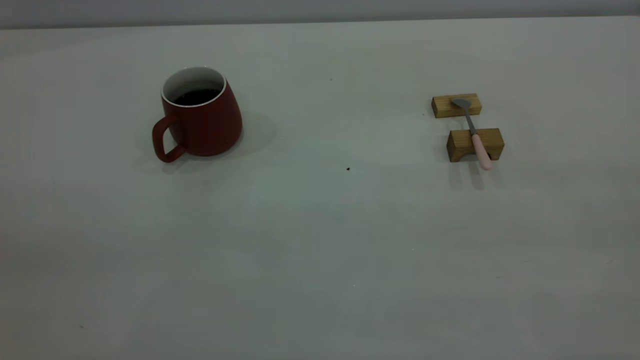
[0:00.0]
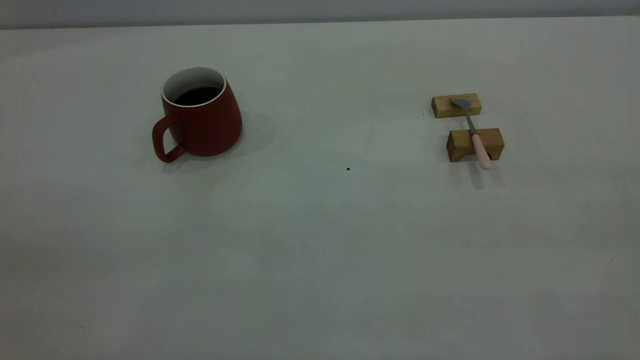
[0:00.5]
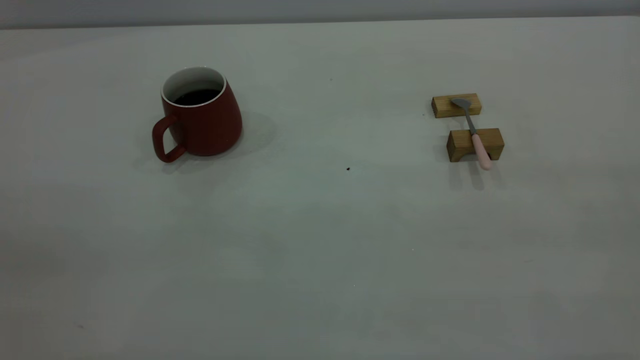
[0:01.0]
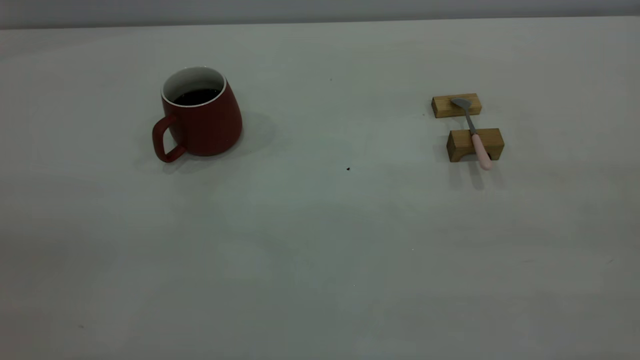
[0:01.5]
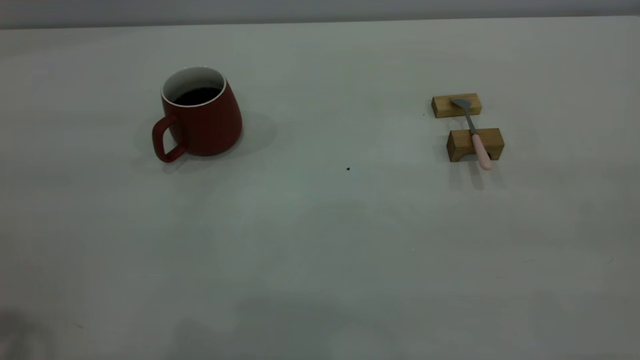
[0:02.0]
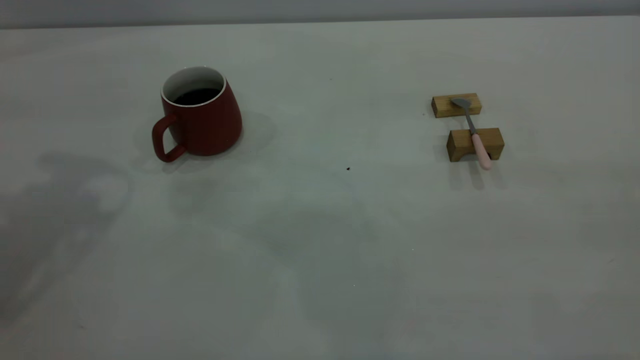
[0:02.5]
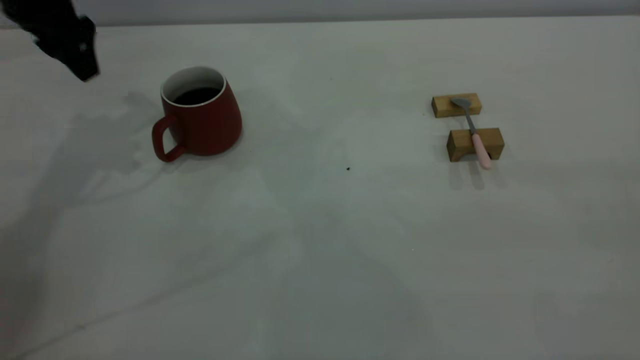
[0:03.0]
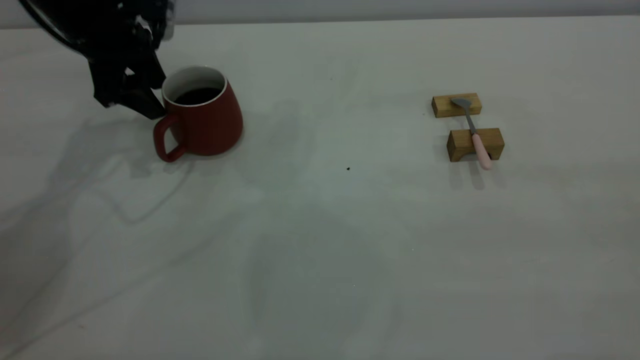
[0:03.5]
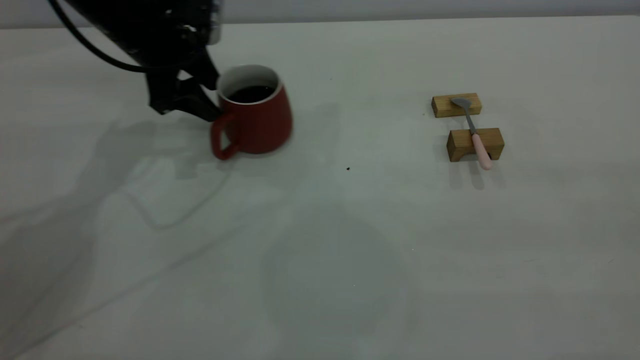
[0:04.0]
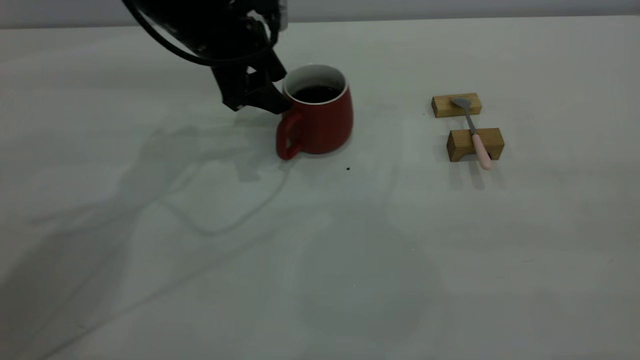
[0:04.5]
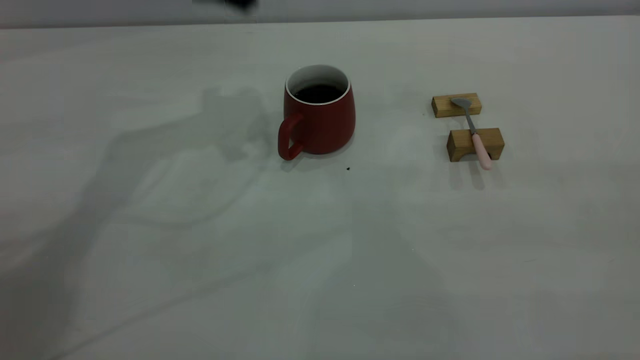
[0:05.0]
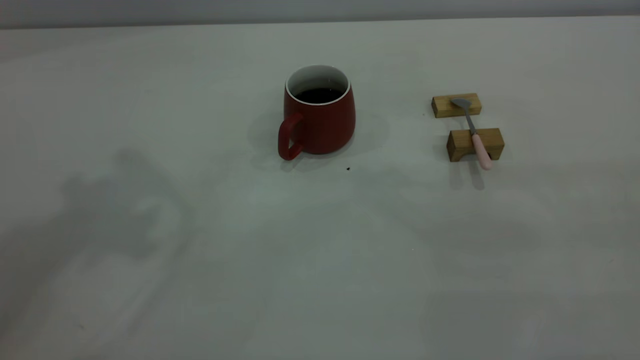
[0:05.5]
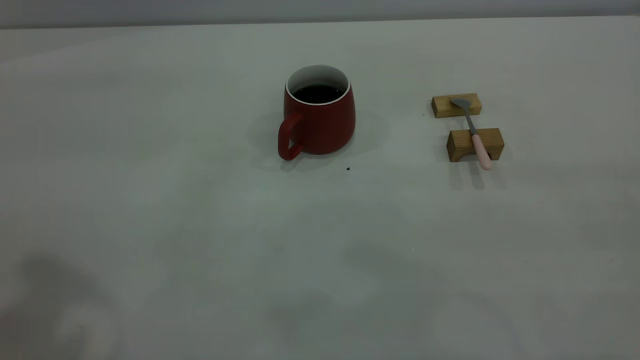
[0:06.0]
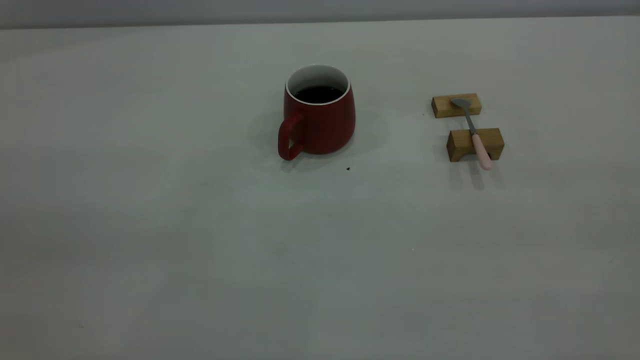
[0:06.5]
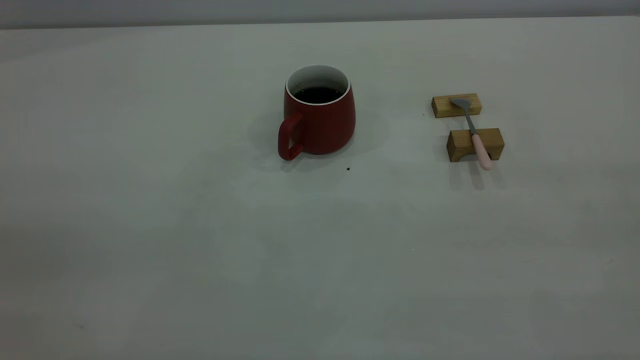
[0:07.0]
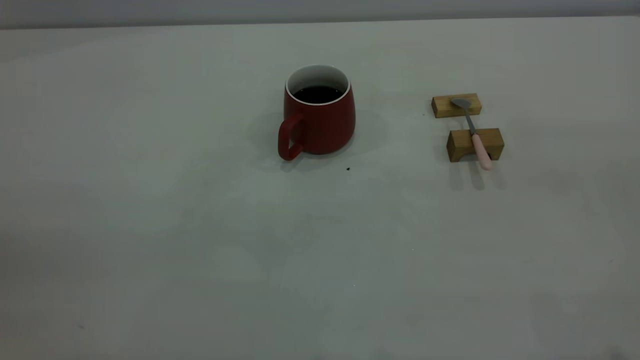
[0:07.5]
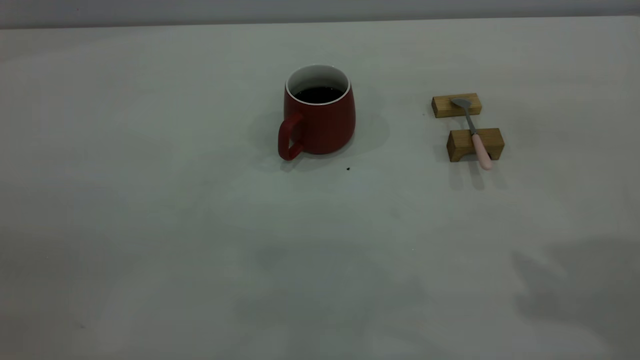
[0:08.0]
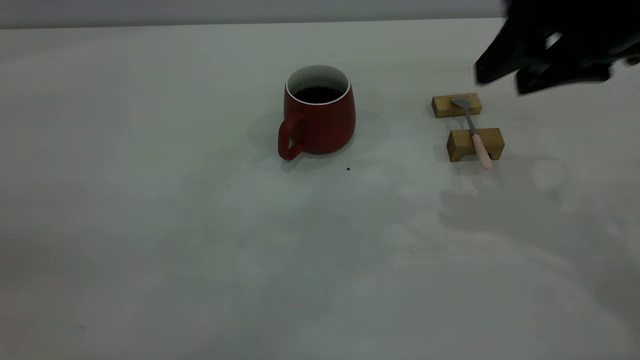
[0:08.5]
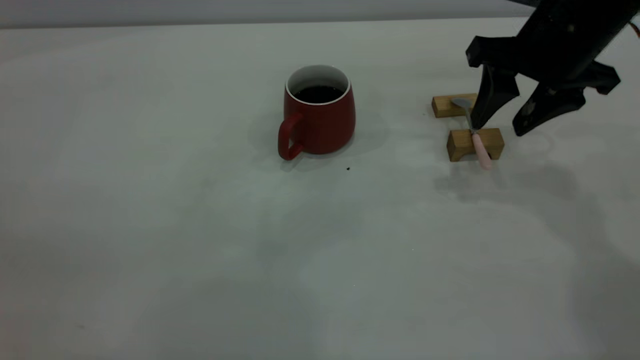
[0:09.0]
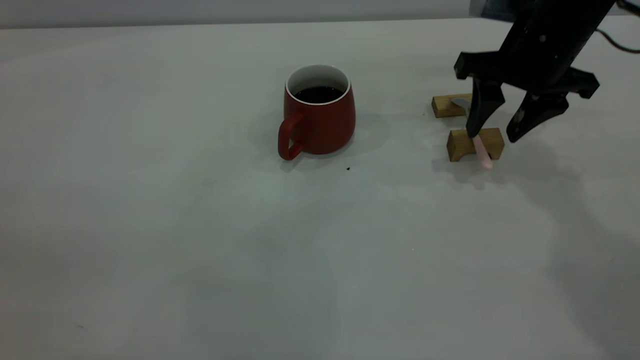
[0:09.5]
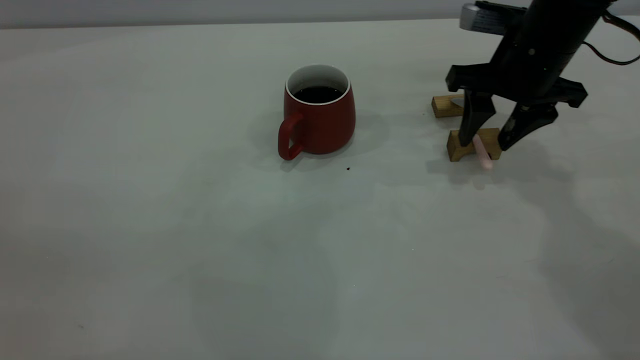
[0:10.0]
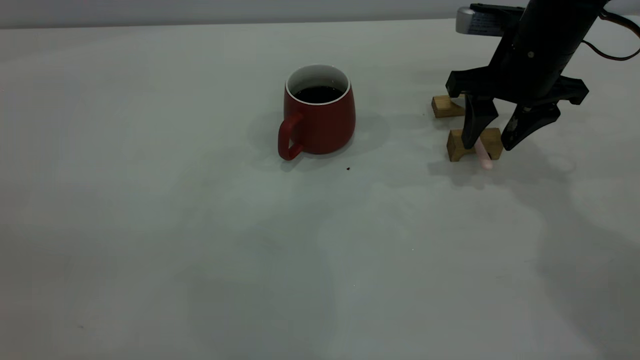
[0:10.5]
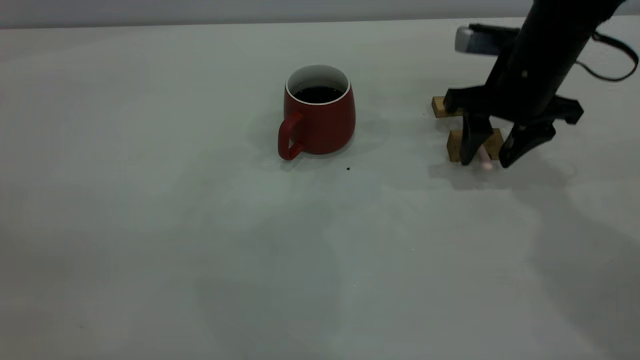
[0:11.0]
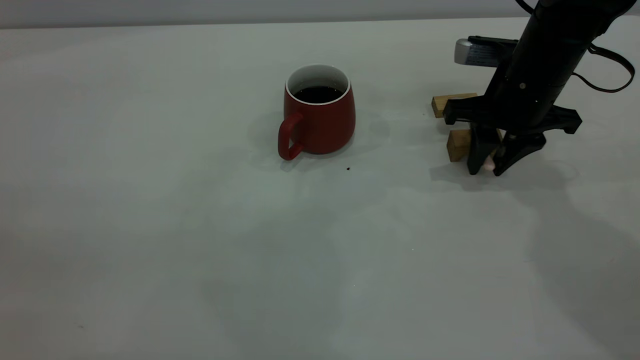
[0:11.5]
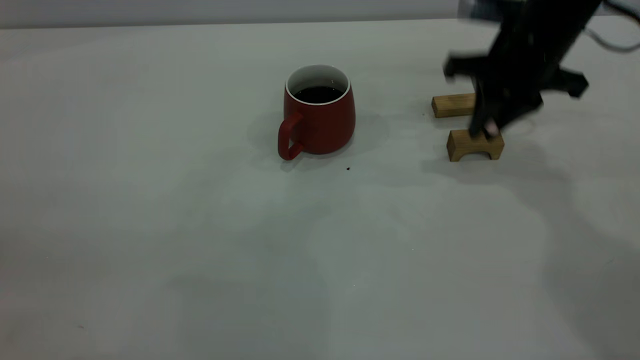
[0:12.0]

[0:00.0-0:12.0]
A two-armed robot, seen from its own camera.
Step, 0:00.0 to 0:04.5: Move the cup with coffee to the center of view.
Step, 0:05.0 to 0:11.5: Pick up the spoon.
0:02.0 to 0:04.0: The left gripper is displaced forward and downward by roughly 40 cm.
0:04.0 to 0:06.0: The left gripper is displaced backward and upward by about 40 cm.
0:08.0 to 0:10.0: The right gripper shifts roughly 30 cm forward and downward.
0:10.0 to 0:12.0: The right gripper closes up.

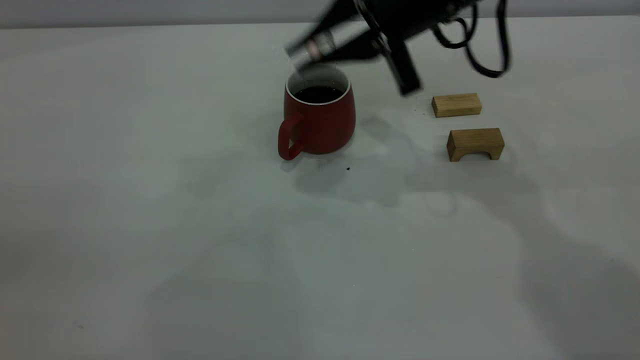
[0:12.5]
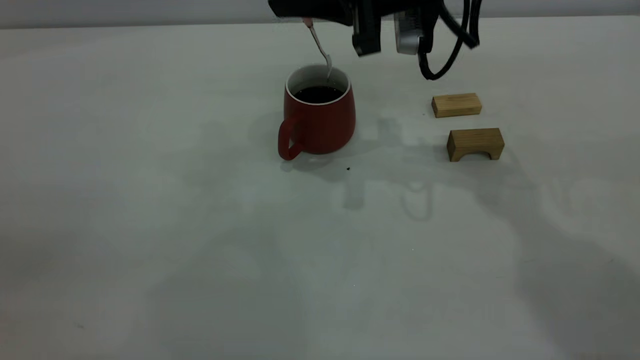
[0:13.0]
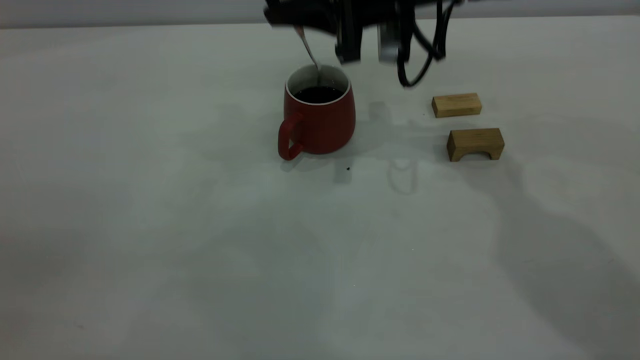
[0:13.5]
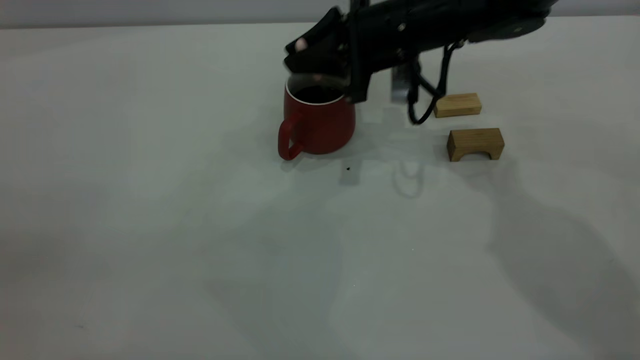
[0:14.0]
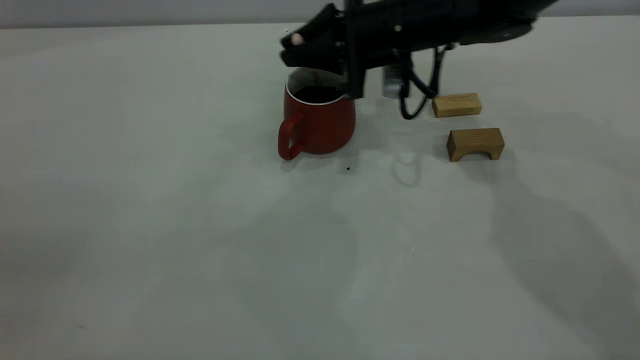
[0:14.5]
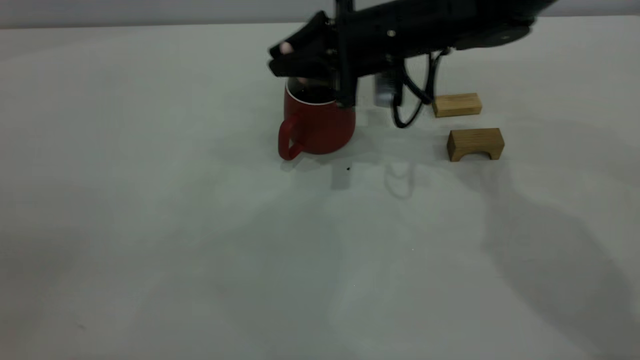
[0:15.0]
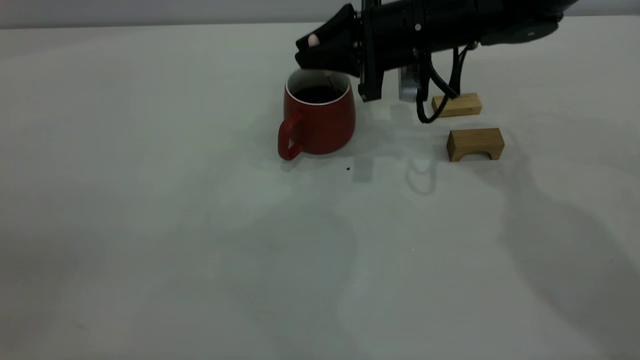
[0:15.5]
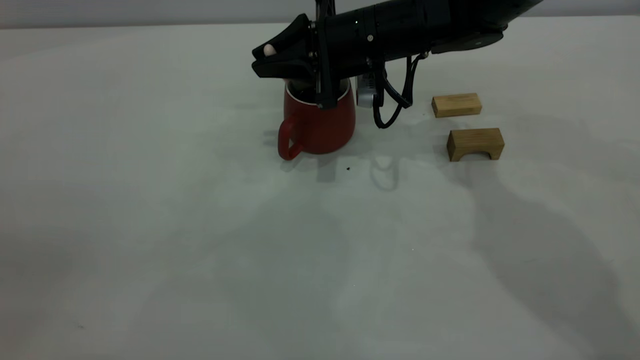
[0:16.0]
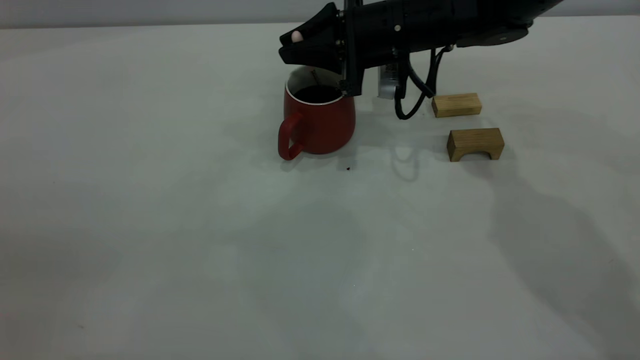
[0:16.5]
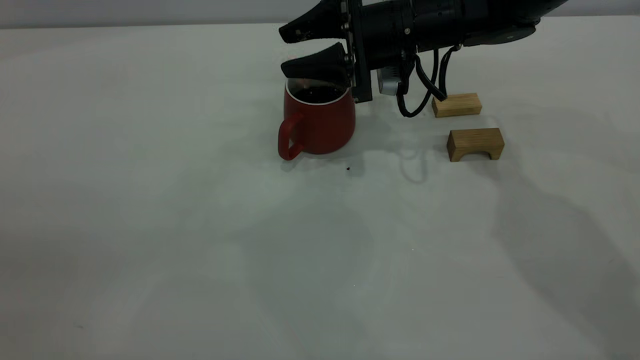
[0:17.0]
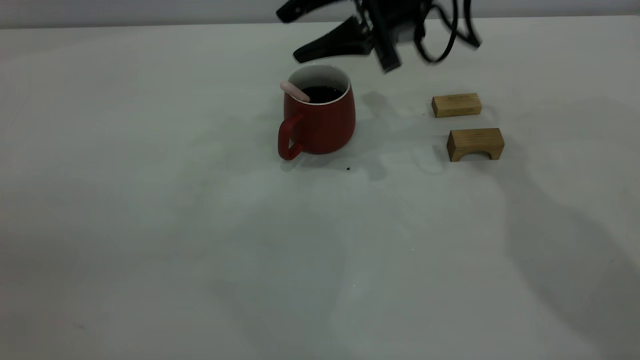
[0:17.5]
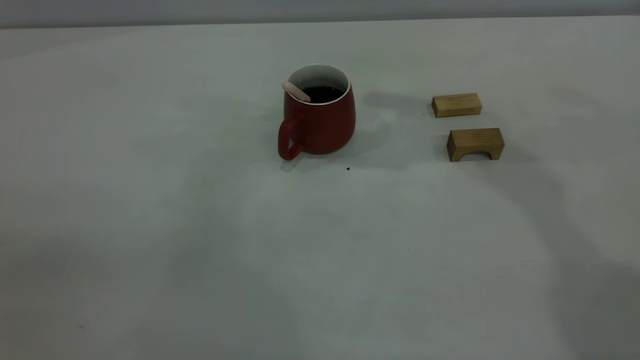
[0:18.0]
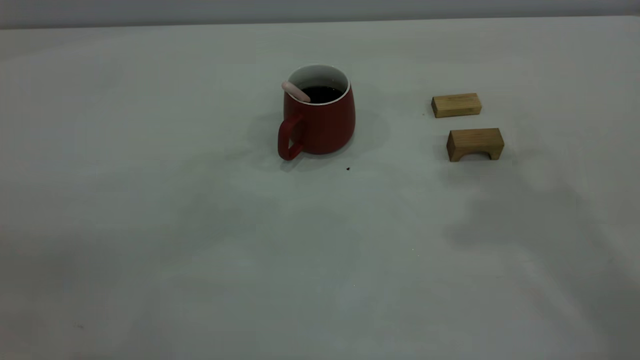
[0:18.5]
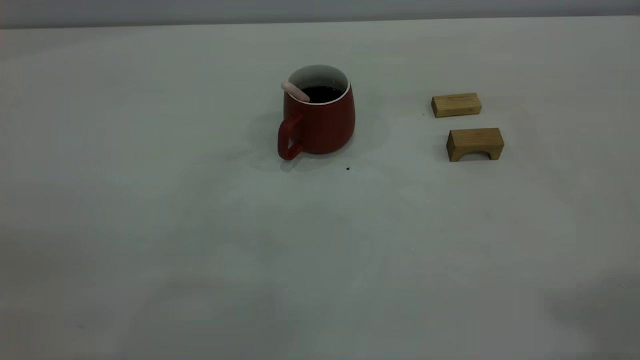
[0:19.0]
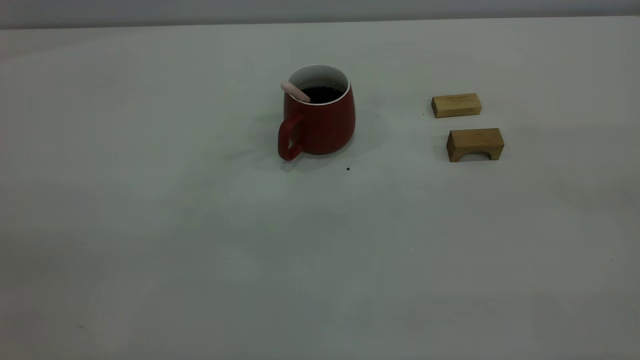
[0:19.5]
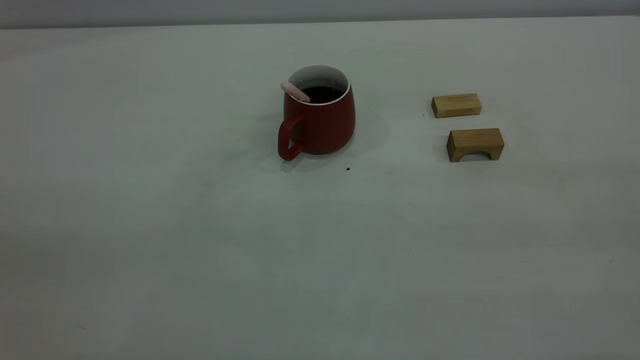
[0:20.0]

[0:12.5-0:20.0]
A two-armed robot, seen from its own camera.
Step, 0:12.5 to 0:17.5: Stir the coffee in the cup.
0:12.5 to 0:14.5: The right gripper is displaced downward and forward by roughly 10 cm.
0:14.5 to 0:16.5: The grippers make only small movements.
0:16.5 to 0:18.0: The right gripper goes approximately 25 cm upward, and opens its fingers.

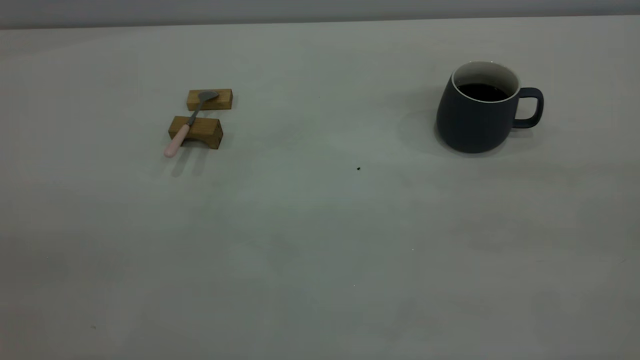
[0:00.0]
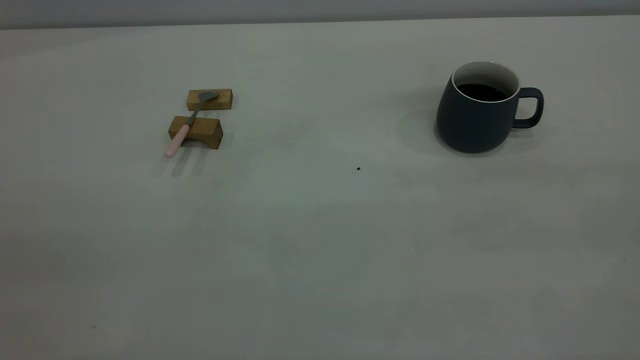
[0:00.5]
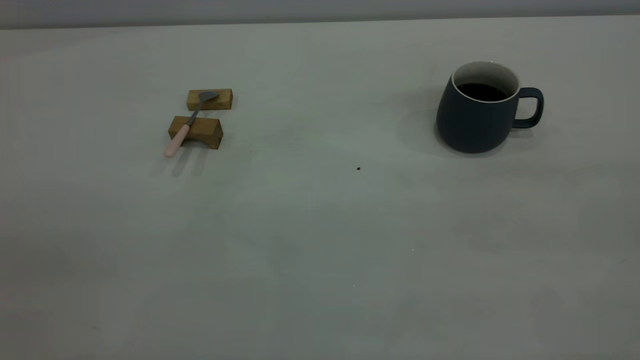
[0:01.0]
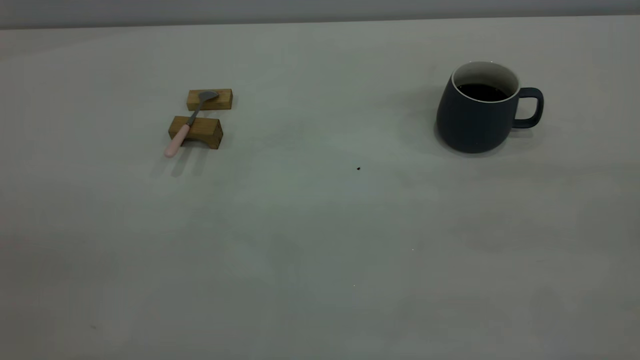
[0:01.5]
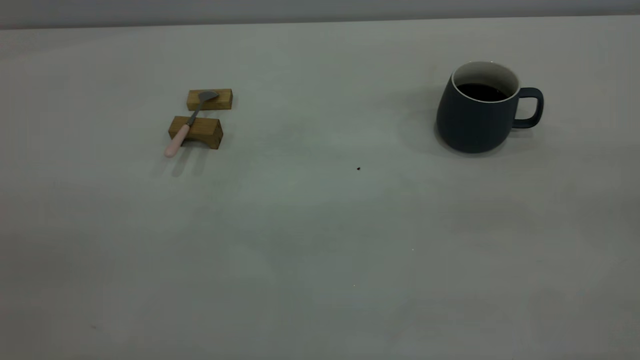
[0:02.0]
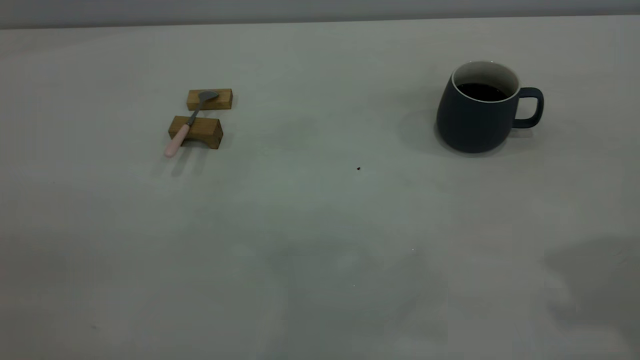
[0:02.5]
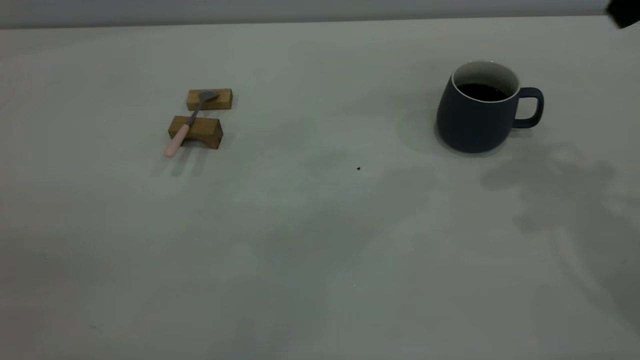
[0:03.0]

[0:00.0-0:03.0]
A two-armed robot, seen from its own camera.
0:00.0 to 0:01.5: Both grippers stay put.
